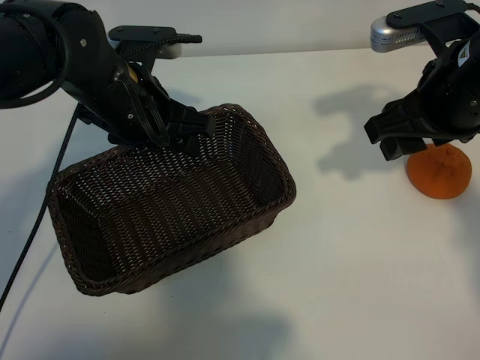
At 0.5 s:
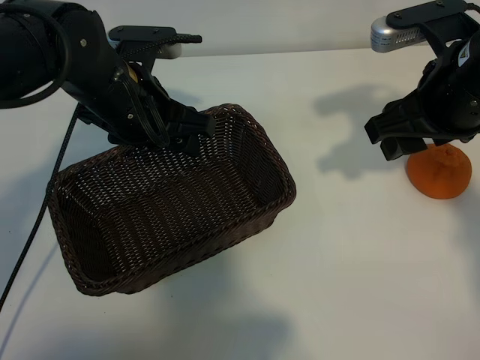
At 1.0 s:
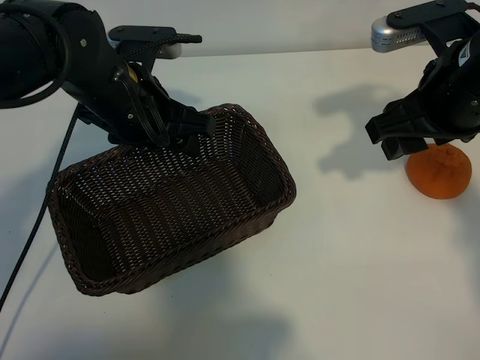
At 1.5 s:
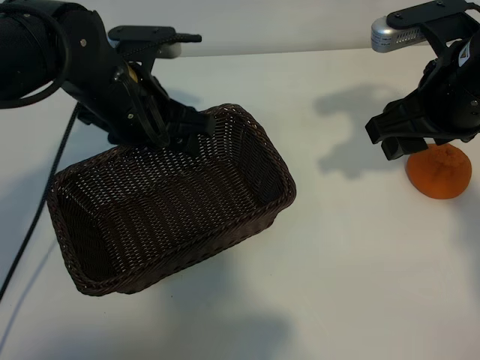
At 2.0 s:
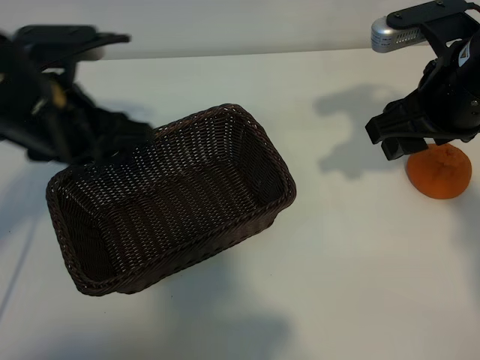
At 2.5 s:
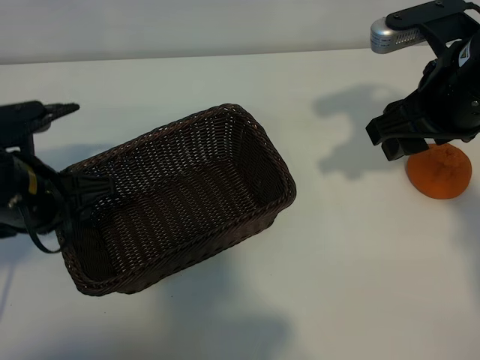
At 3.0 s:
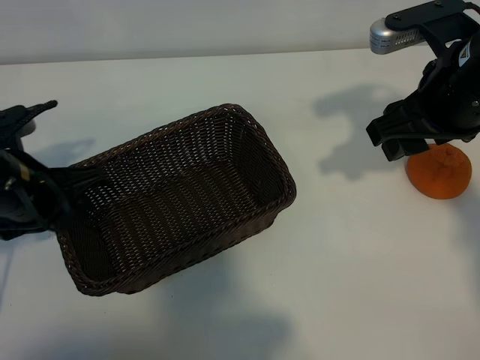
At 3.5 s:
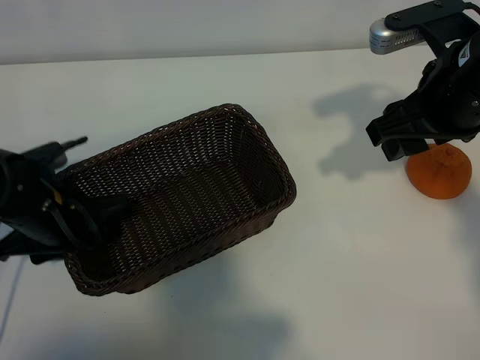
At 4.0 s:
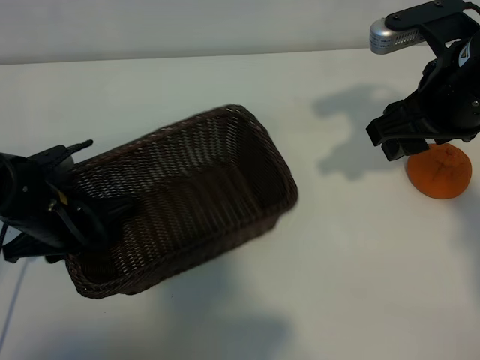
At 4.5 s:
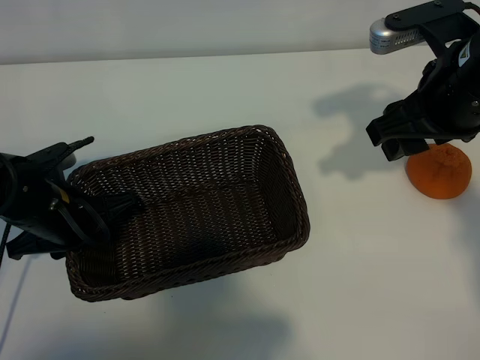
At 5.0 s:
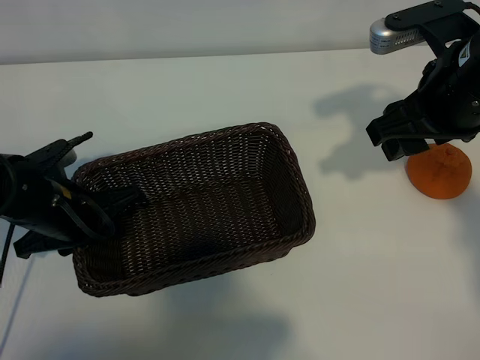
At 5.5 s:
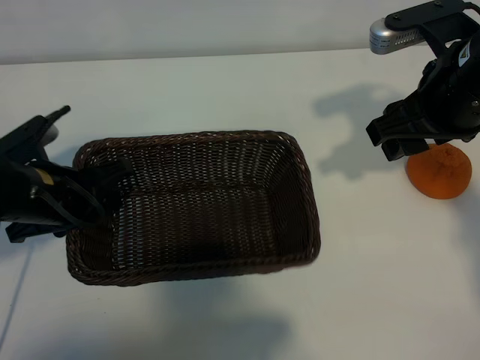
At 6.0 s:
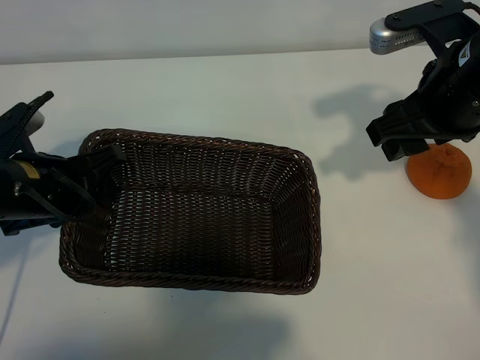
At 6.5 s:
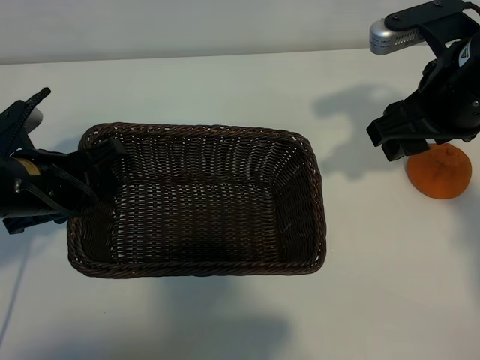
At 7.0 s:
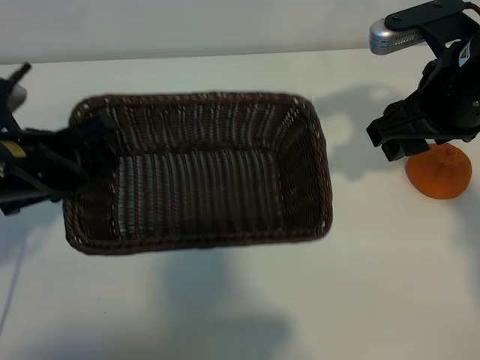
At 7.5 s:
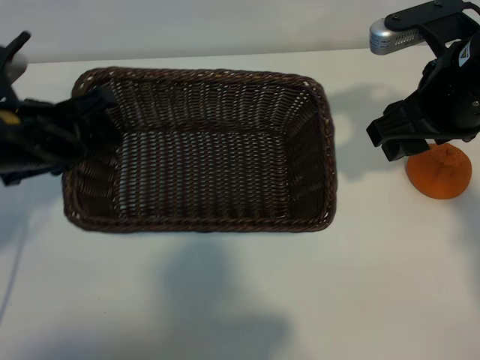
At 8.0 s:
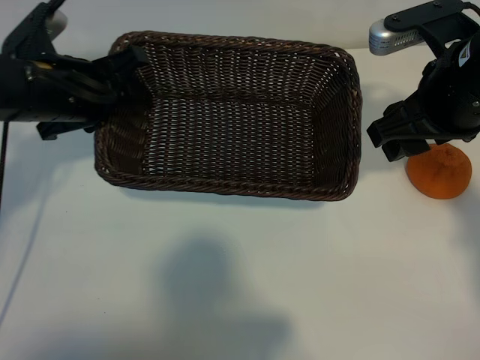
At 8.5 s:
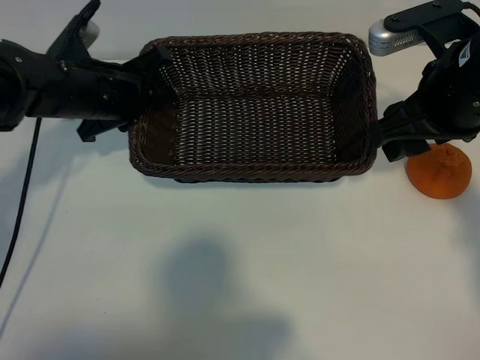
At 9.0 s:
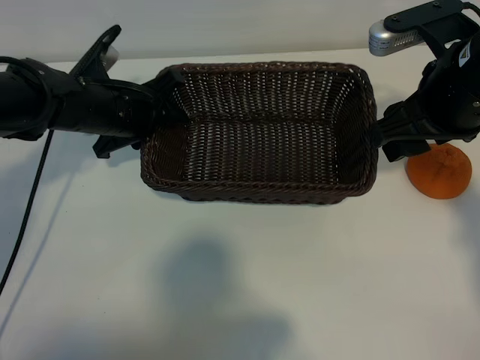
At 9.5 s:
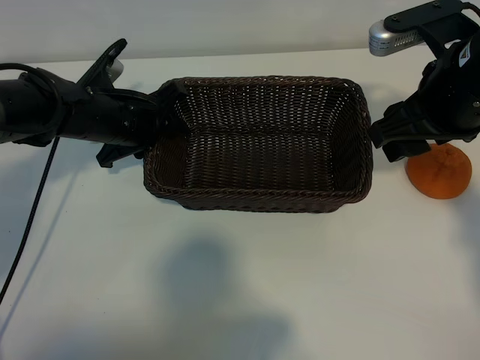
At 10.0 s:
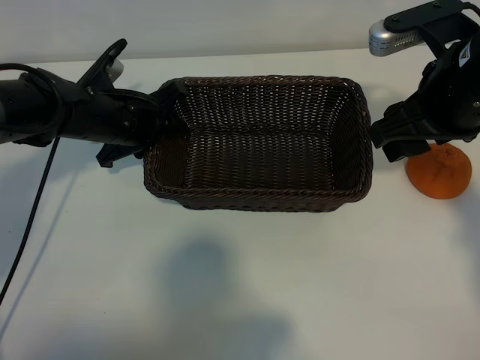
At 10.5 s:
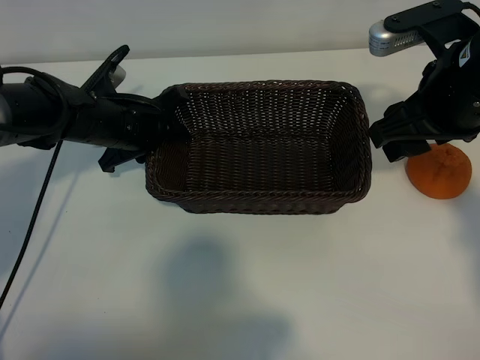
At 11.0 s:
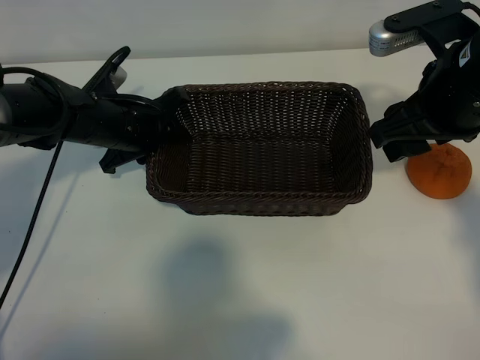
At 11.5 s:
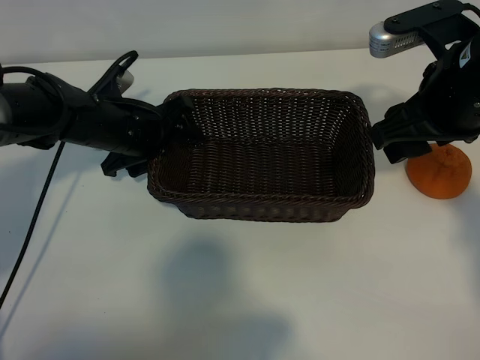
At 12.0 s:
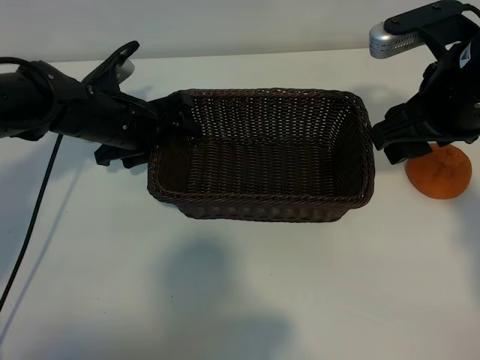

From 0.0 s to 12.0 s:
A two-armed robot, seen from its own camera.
Task of the whole recording: pick up the orange and put it into the basket.
Step, from 1.5 s to 4.0 s: Grasp the basket with left gripper.
Step, from 4.5 s to 11.0 s: Place the basket in the center of view with left gripper.

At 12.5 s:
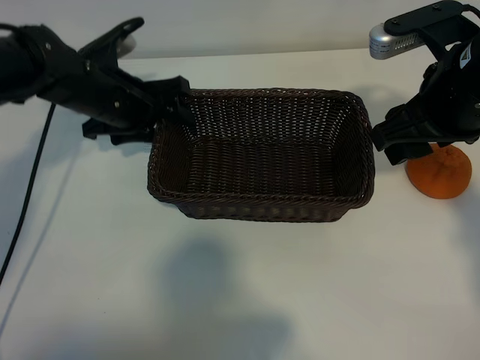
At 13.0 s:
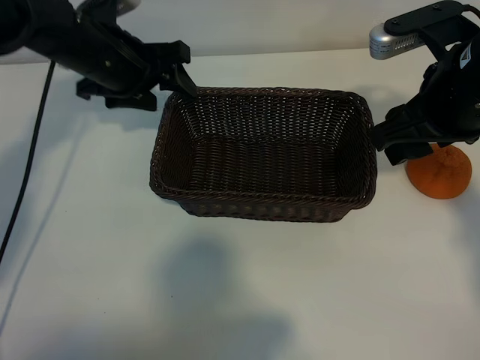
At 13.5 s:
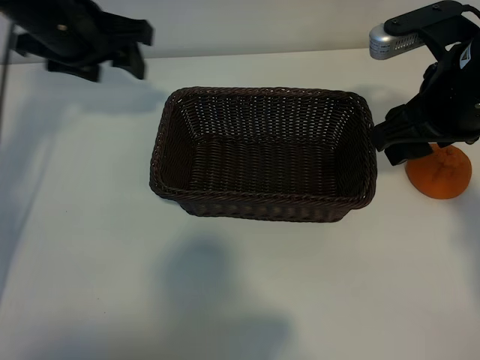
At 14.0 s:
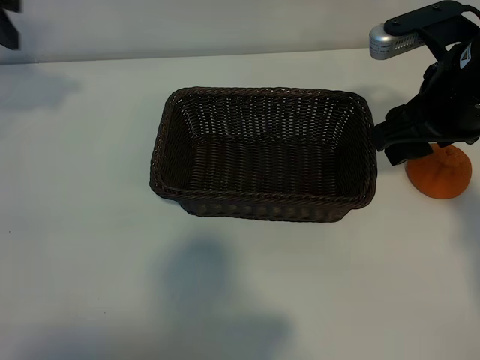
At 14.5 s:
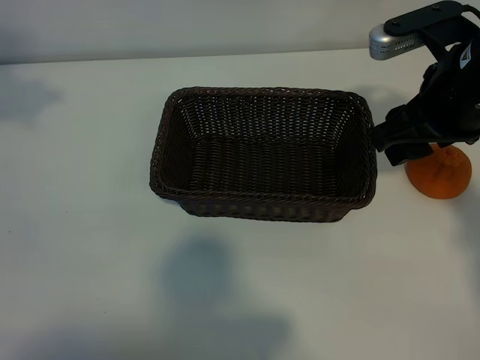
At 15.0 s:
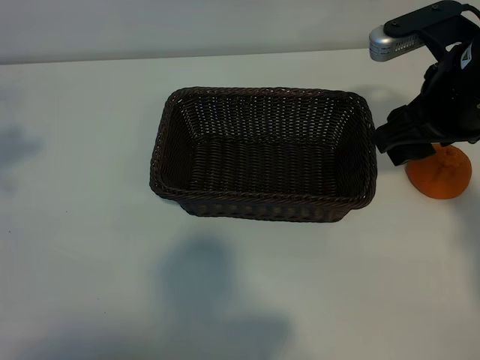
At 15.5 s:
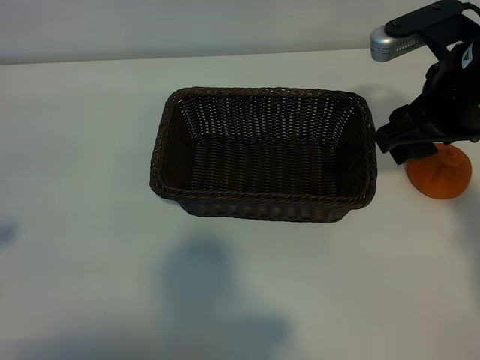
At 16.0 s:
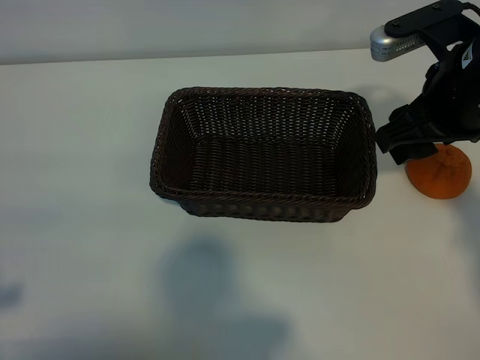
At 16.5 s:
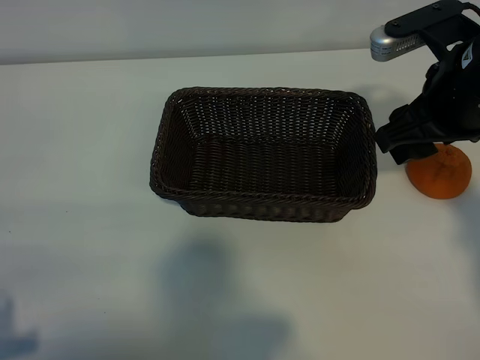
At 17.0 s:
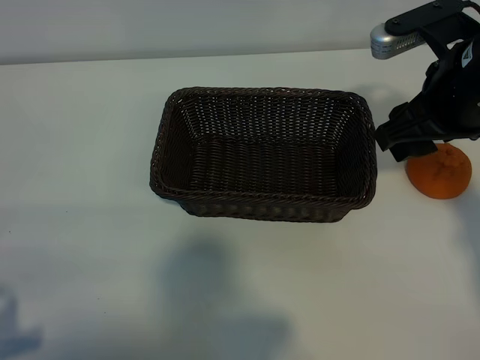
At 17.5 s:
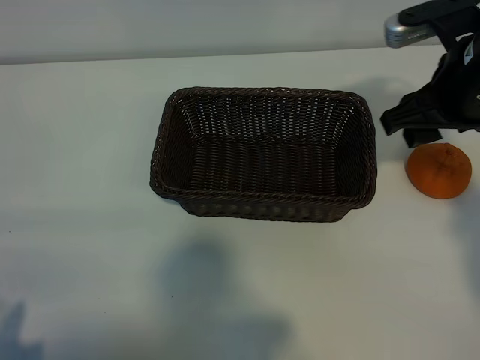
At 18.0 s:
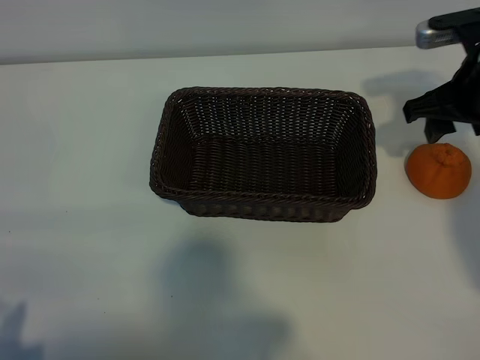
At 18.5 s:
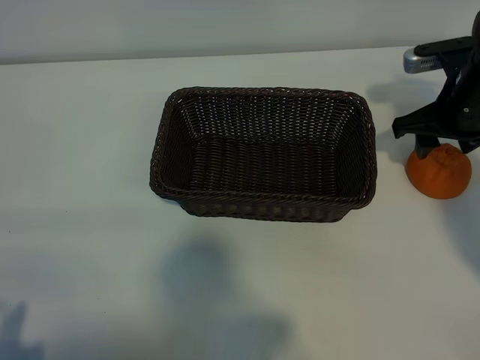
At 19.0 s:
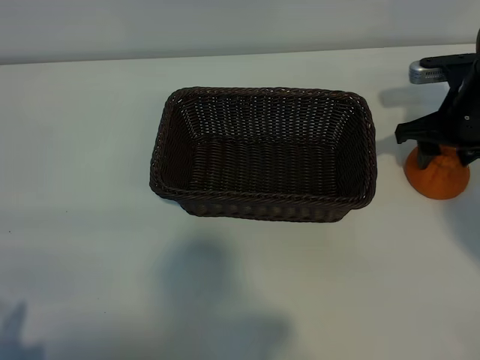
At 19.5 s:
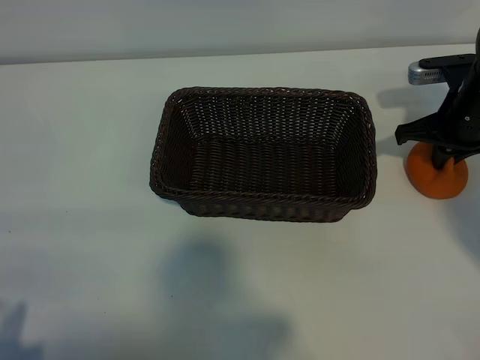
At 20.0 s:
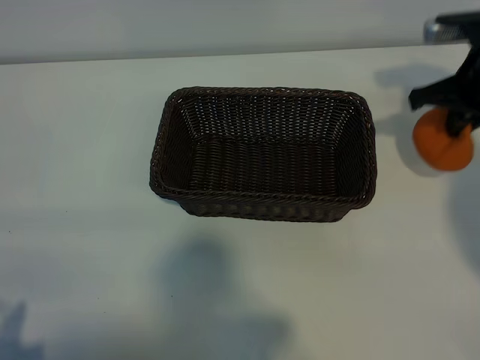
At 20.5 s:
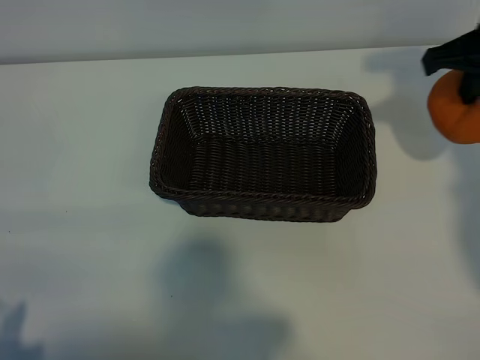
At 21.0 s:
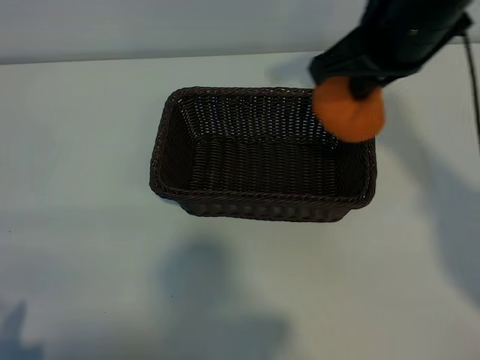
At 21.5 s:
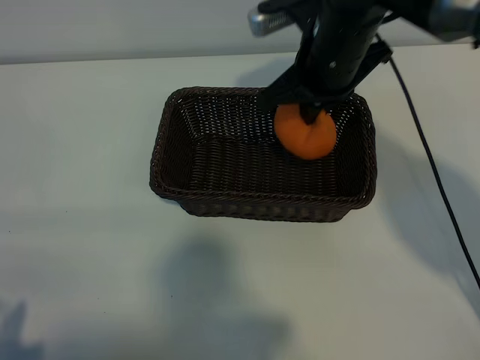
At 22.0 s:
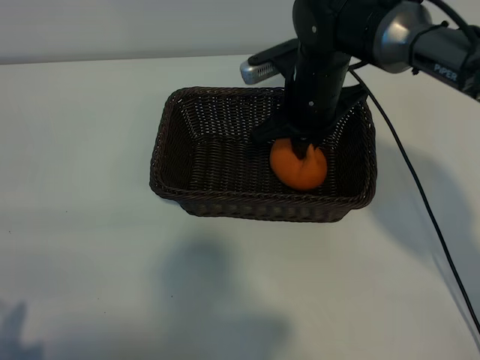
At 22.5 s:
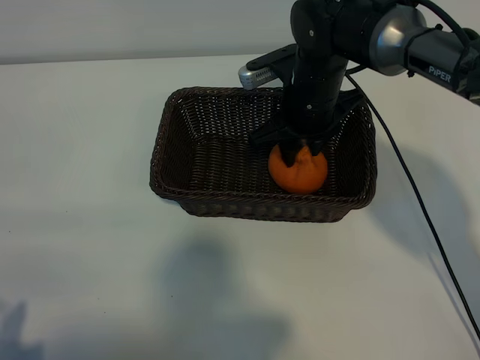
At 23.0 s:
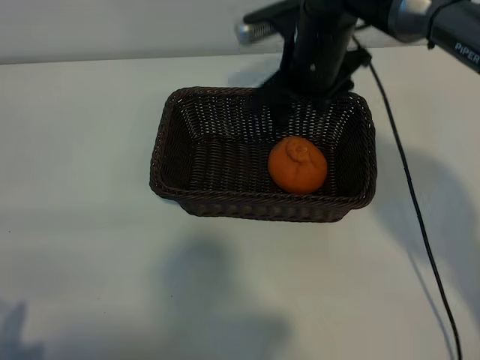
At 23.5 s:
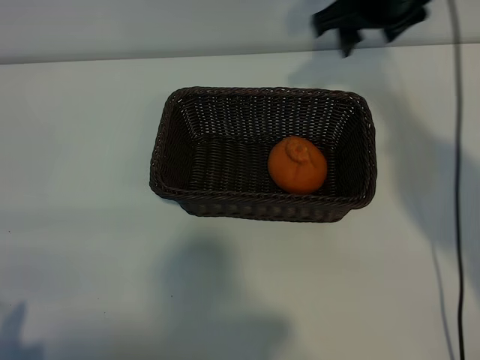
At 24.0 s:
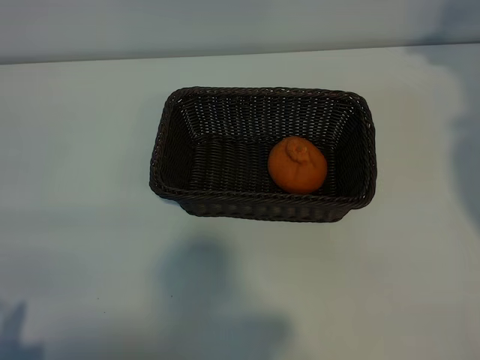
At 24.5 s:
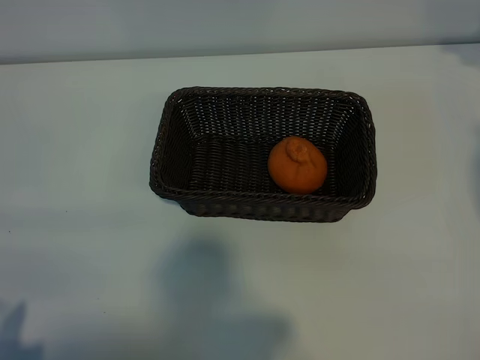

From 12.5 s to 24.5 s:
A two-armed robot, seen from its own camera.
Task of the whole recording: pick up the orange and put it into the basket.
Step, from 12.5 s to 19.0 s: Grasp the orange with right gripper.
Step, from 19.5 s to 22.5 s: Place the orange in the basket with right gripper.

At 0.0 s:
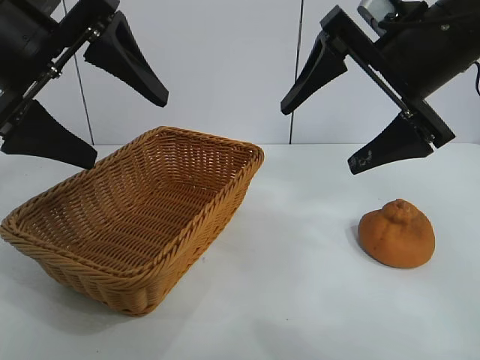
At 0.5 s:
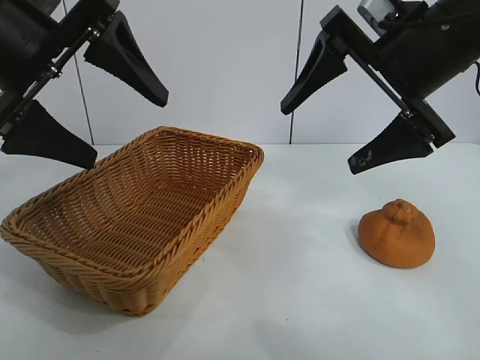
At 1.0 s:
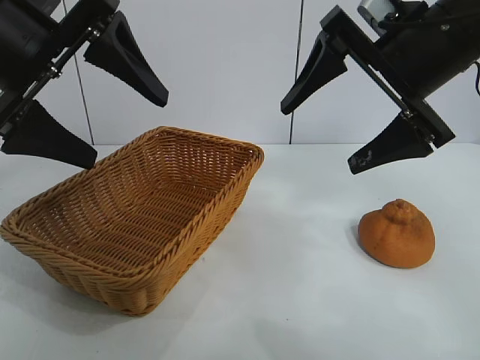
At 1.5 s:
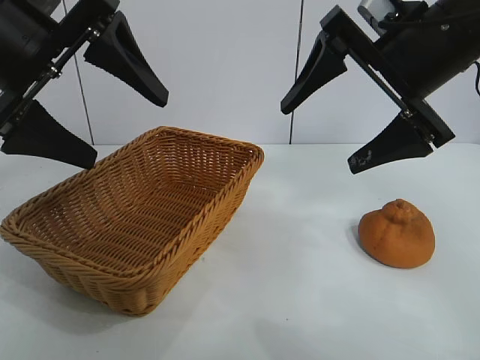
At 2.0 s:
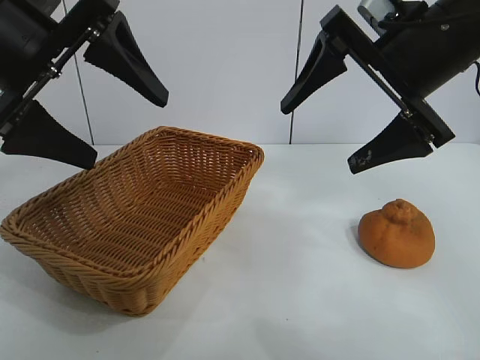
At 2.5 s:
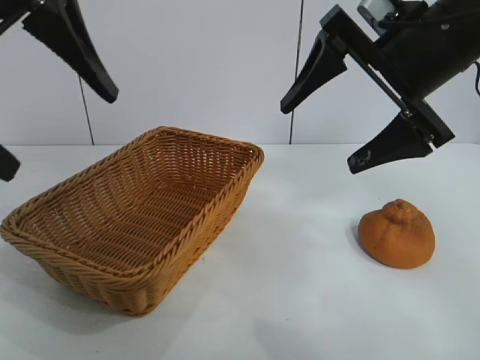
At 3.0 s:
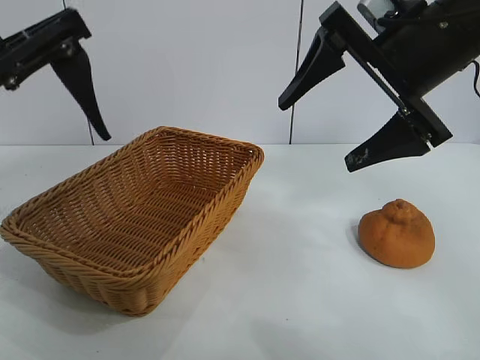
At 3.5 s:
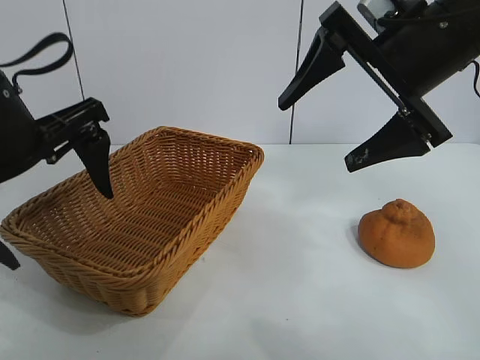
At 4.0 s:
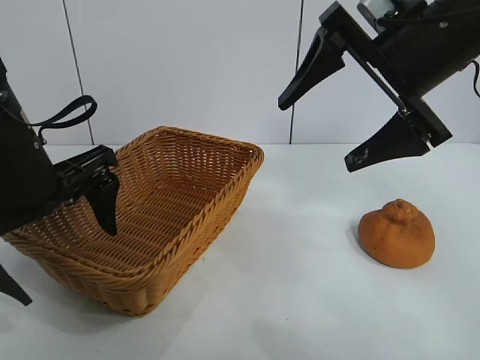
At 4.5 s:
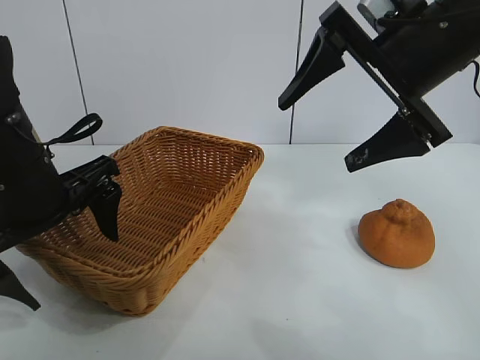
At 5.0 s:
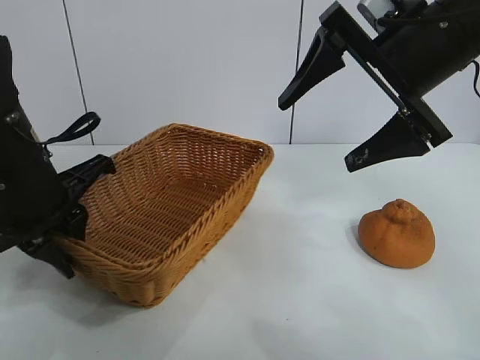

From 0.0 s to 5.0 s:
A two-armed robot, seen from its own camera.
Task of the whole recording: pick up the orange and put it into the basket.
Step, from 2.5 s to 4.5 s: Grasp the basket with left gripper.
